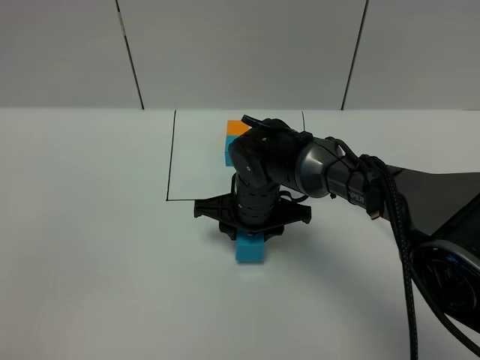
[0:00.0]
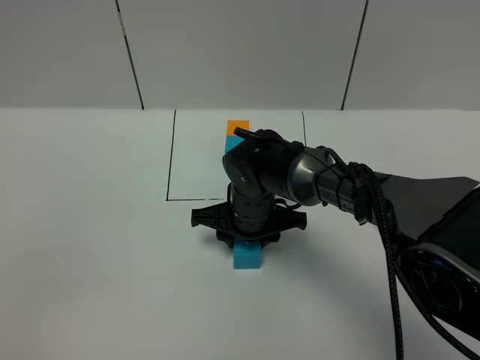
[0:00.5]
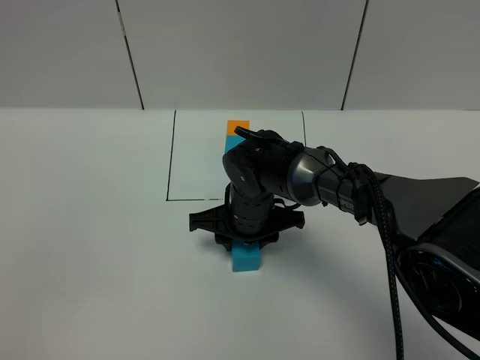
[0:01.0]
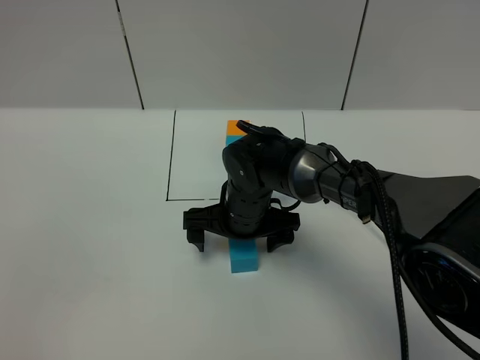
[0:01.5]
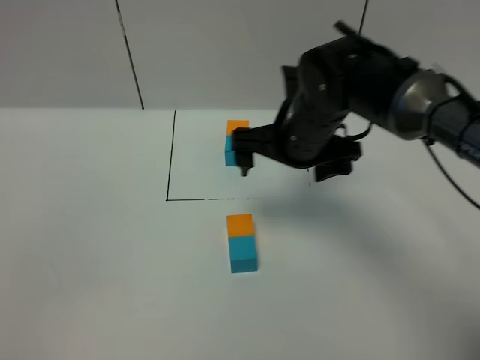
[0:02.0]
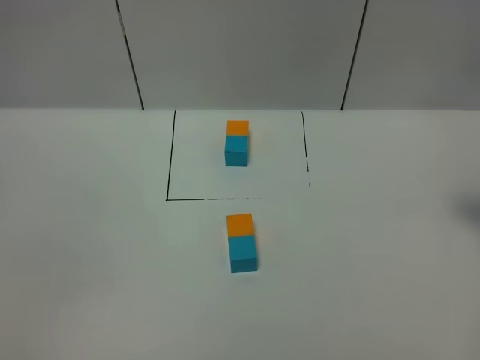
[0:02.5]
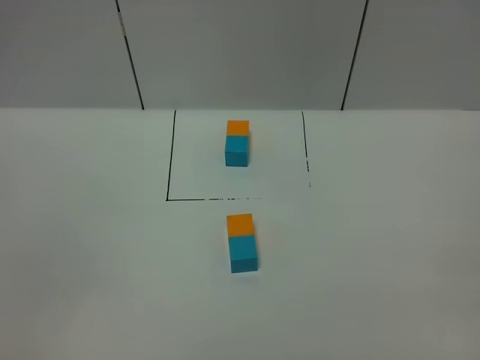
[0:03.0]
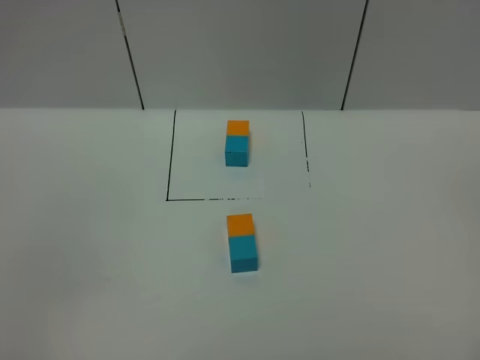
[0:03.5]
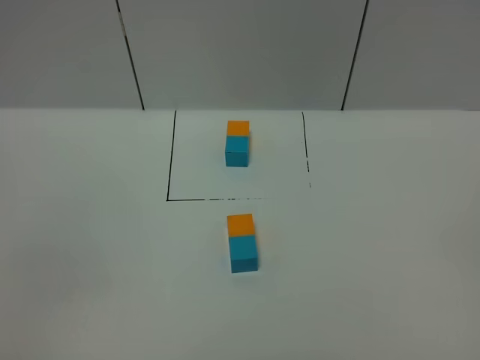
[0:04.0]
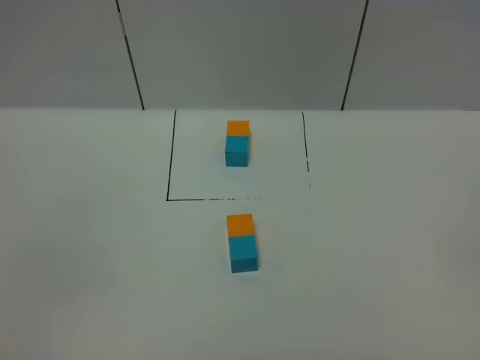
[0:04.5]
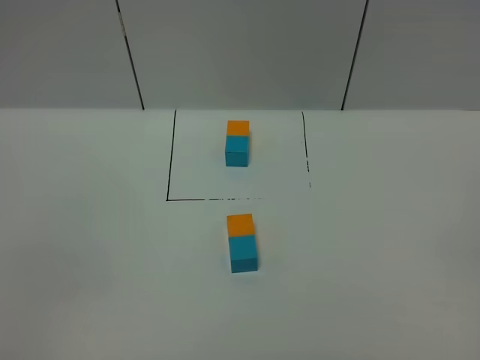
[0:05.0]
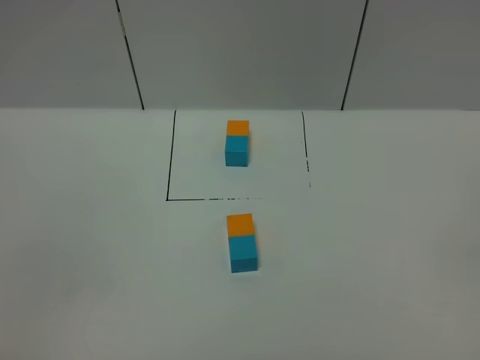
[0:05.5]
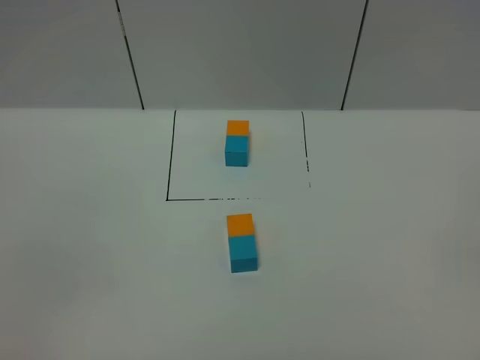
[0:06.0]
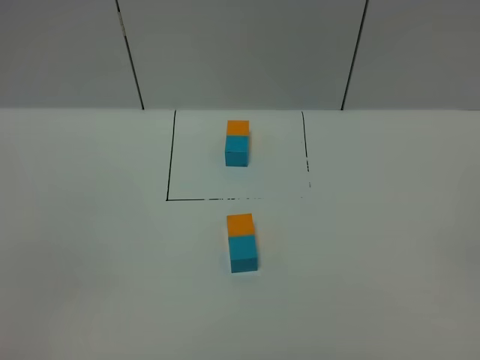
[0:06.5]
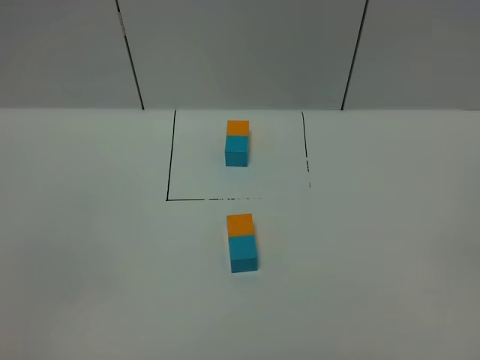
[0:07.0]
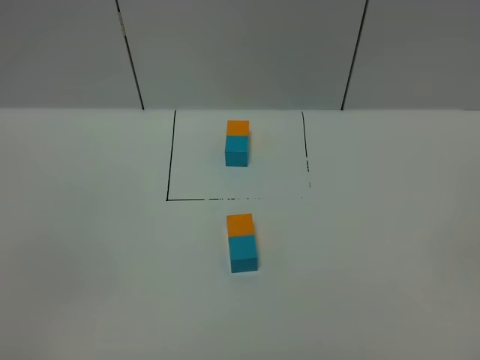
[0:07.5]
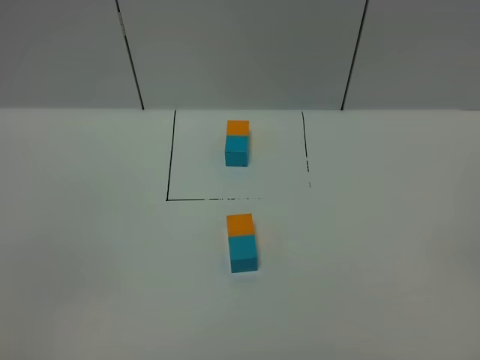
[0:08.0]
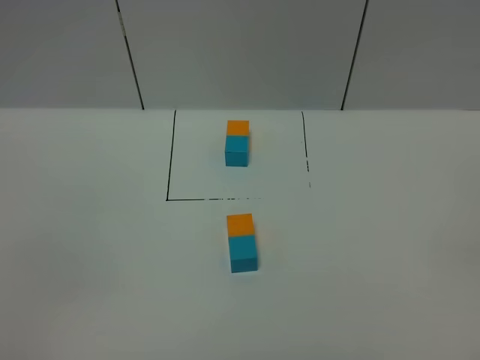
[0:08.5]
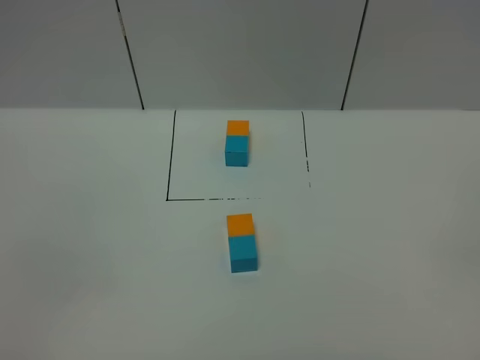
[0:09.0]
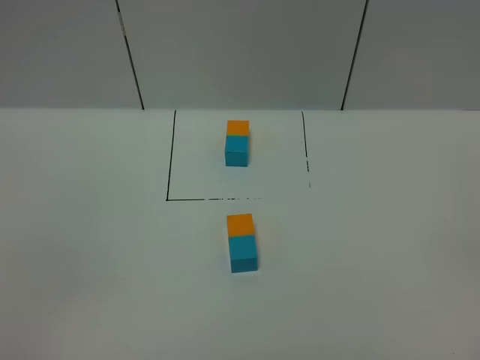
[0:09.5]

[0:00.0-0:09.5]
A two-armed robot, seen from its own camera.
Task of the whole recording: According to the building block template in front, assemble the scattered blocks together.
0:00.0 to 0:02.0: The right gripper shifts roughly 15 cm upward and to the right, and opens its fingers.
0:02.0 to 0:04.0: The right gripper shifts some 50 cm backward and to the right.
0:05.5 to 0:09.5: The two grippers keep their place.
